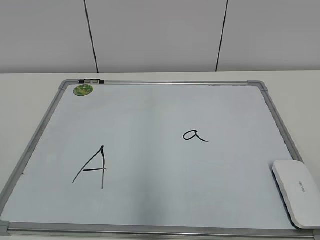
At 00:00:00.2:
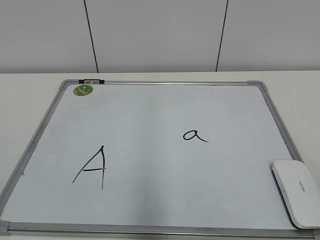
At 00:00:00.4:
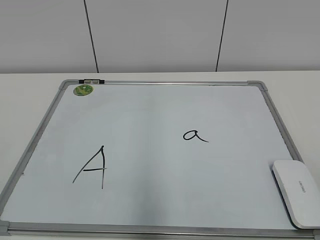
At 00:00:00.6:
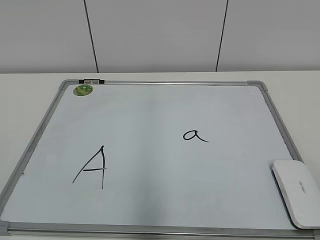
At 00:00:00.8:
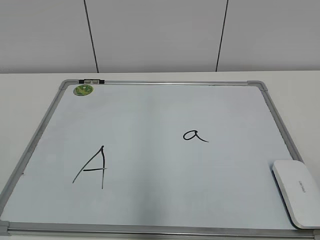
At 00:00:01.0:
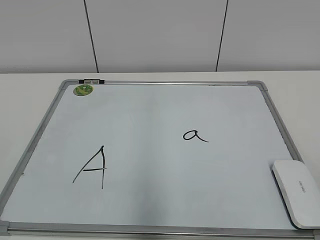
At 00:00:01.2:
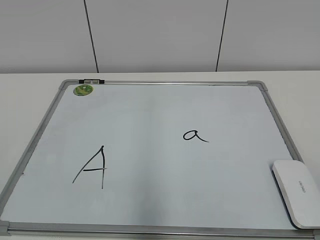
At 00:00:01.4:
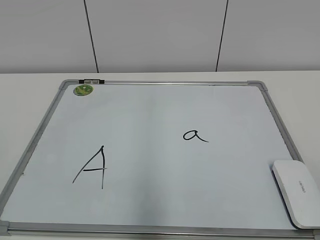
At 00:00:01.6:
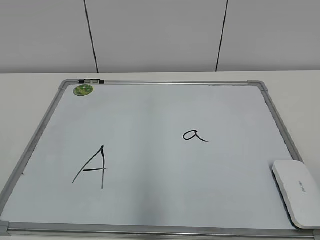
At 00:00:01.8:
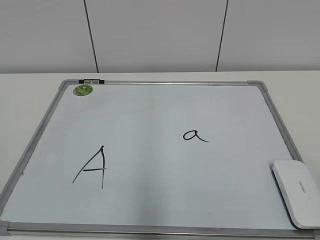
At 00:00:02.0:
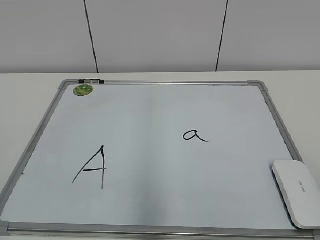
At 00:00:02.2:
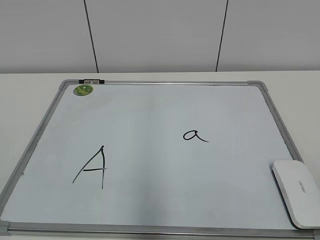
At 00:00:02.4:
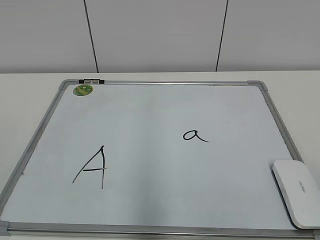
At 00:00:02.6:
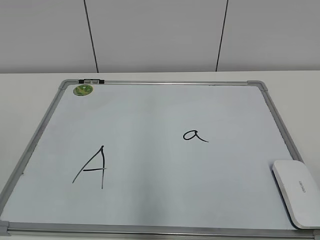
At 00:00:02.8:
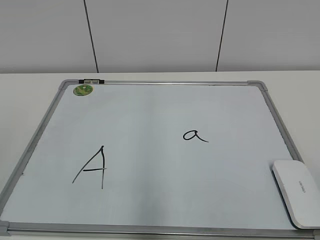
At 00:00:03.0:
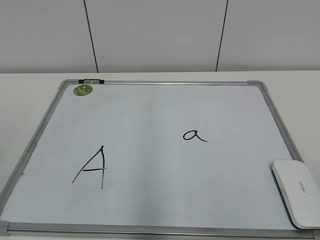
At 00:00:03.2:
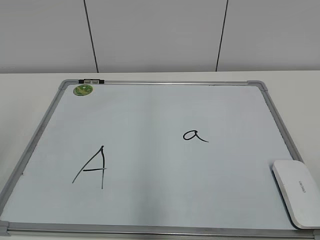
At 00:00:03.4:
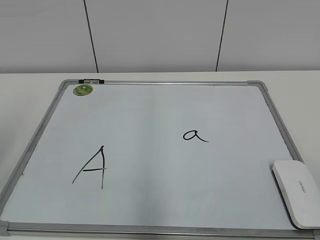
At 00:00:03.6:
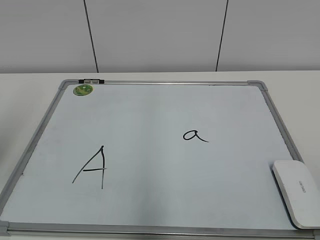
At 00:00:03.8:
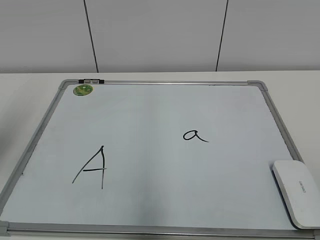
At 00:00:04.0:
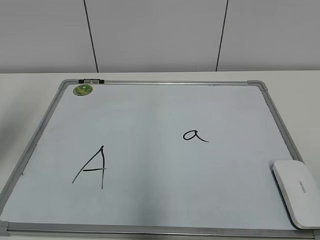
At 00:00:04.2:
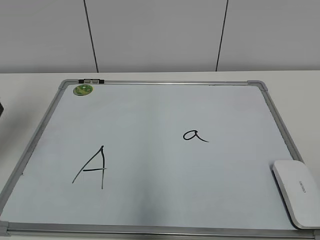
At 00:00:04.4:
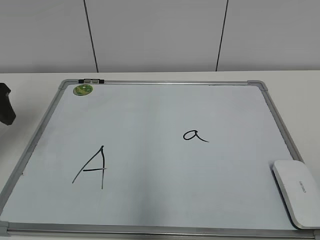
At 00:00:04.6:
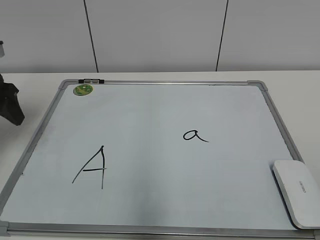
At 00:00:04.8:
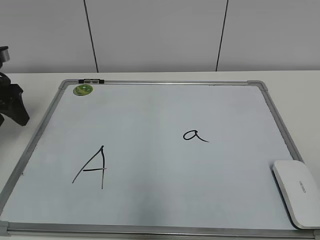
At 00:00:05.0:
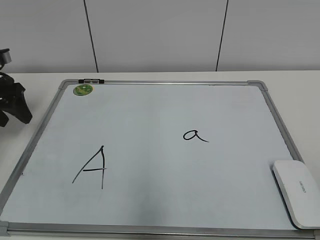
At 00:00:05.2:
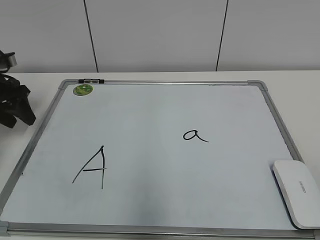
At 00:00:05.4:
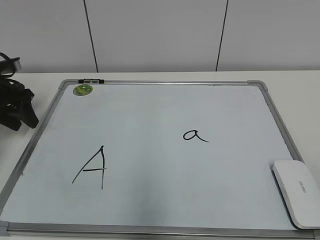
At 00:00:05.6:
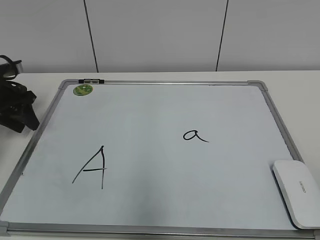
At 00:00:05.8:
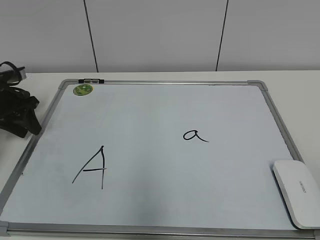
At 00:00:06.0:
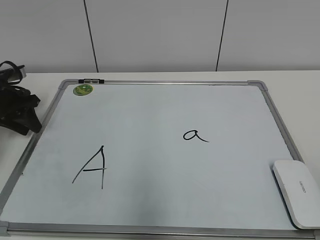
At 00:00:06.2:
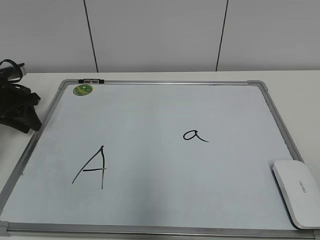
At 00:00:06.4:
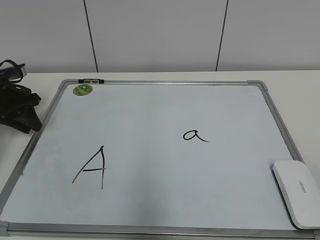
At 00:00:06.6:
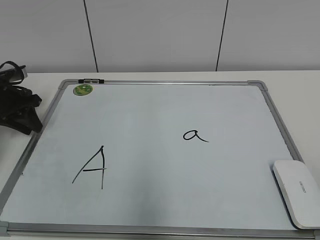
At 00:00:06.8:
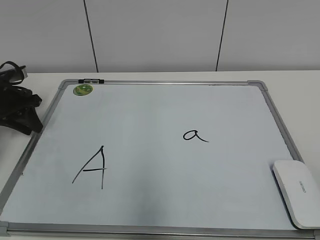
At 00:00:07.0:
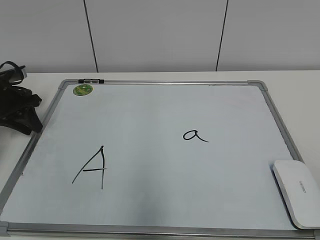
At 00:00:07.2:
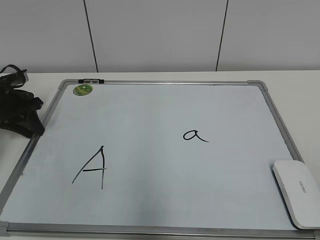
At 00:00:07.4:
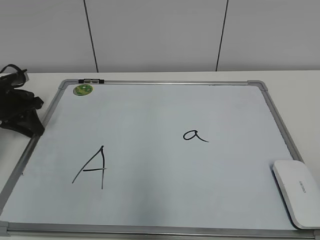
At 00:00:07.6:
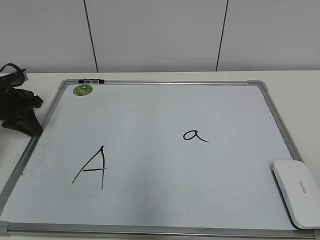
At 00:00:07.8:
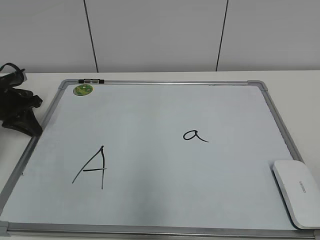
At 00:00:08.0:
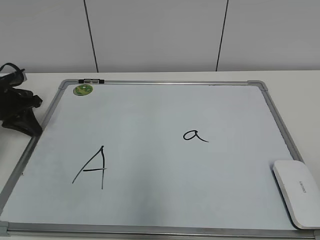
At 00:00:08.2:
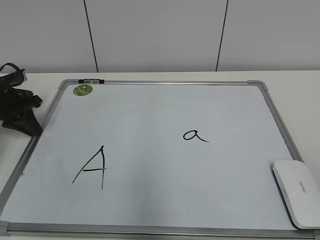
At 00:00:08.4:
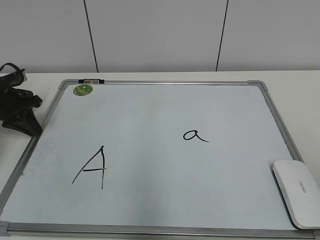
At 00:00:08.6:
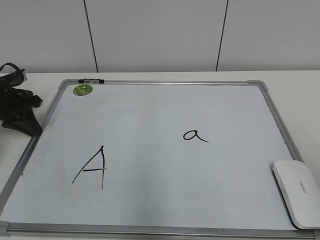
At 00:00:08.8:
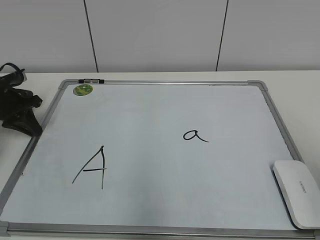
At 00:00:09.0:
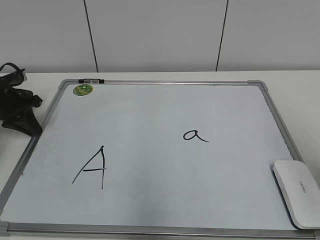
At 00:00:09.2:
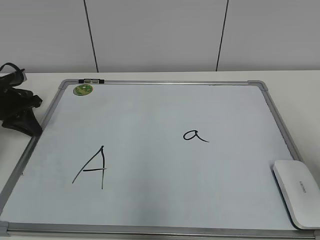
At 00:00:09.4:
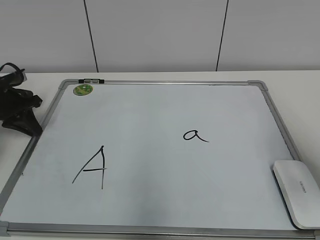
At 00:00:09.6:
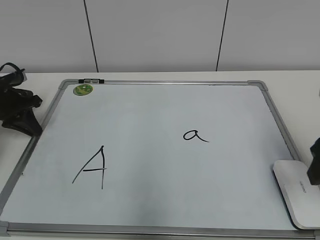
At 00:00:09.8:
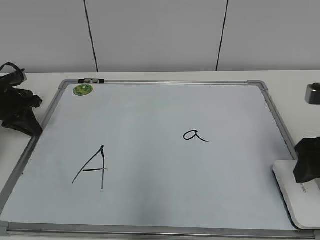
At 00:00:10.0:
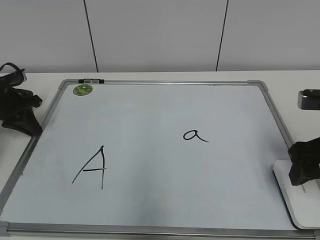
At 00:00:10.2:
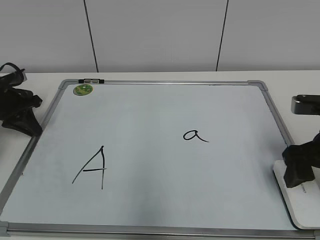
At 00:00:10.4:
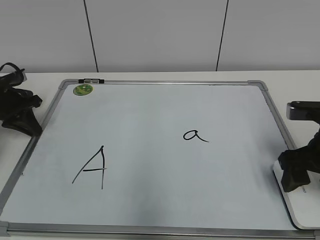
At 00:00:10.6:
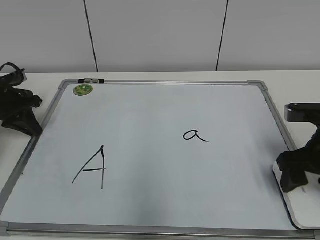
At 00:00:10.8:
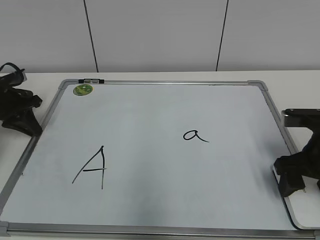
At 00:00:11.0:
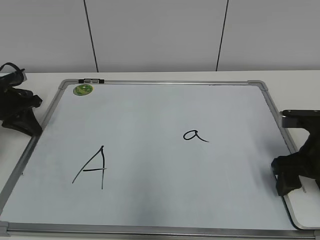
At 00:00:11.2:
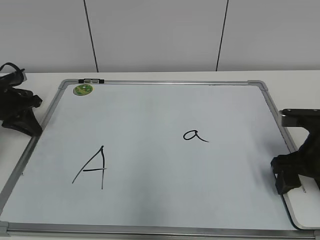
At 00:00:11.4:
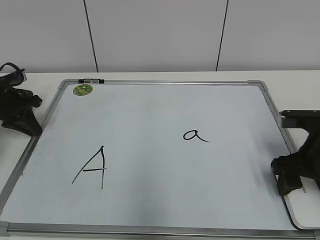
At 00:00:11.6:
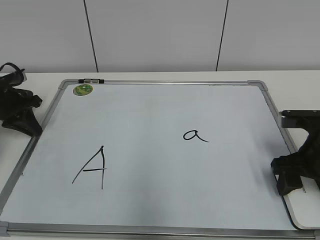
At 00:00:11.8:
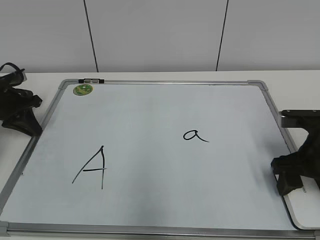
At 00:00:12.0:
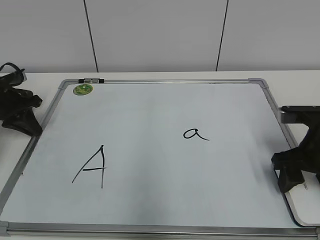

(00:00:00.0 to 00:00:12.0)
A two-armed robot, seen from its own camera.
Task of the whole recording: pick up the eraser on the blackboard and erase the letter "a".
Step, 00:00:00.0 - 00:00:07.2: Hold the drawing board steady with your left hand.
Step, 00:00:07.4 - 00:00:10.8: Grab the eraser with your right hand.
00:00:03.0 - 00:00:04.4: The left gripper shifts roughly 25 cm forward.
00:00:04.4 - 00:00:06.0: The left gripper goes about 15 cm downward and forward, and closes up.
00:00:06.0 - 00:00:07.6: The left gripper closes.
00:00:09.0 - 00:00:10.4: The right gripper goes approximately 20 cm forward and downward.
00:00:10.4 - 00:00:12.0: The right gripper closes its fingers.

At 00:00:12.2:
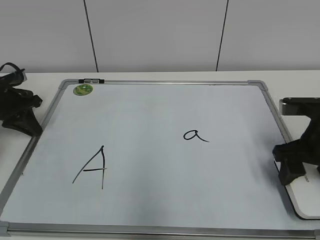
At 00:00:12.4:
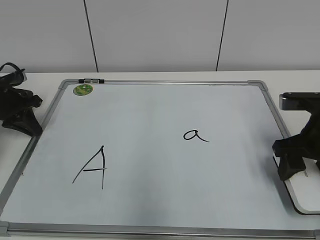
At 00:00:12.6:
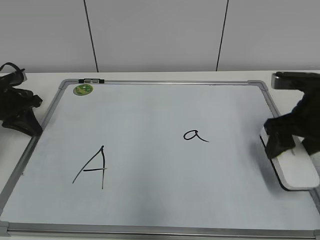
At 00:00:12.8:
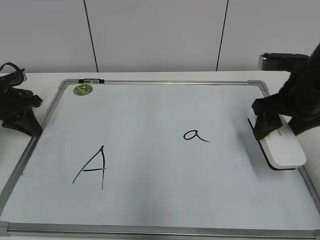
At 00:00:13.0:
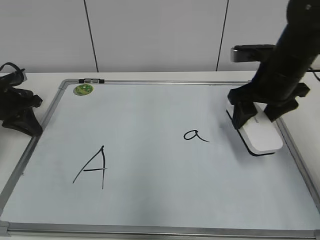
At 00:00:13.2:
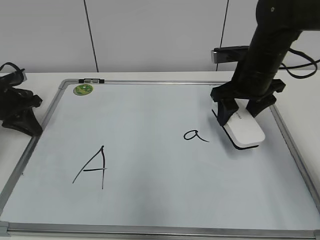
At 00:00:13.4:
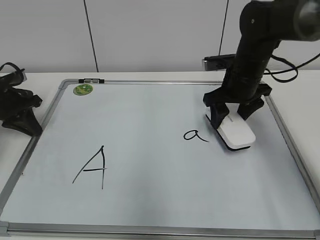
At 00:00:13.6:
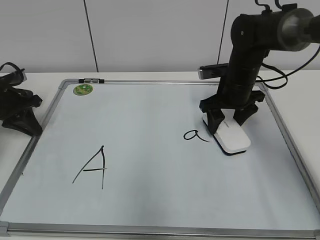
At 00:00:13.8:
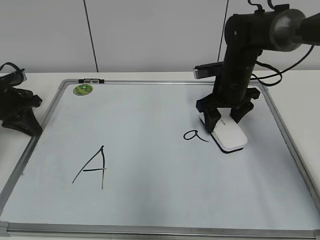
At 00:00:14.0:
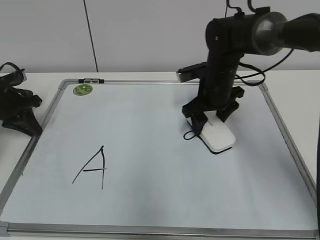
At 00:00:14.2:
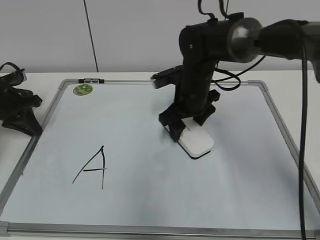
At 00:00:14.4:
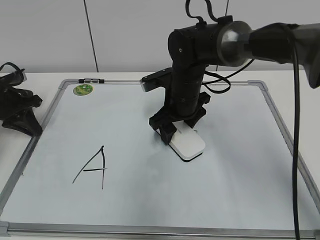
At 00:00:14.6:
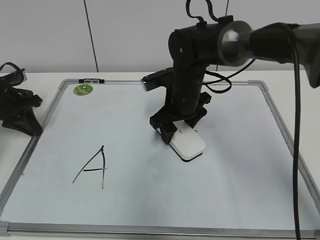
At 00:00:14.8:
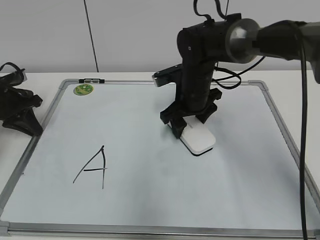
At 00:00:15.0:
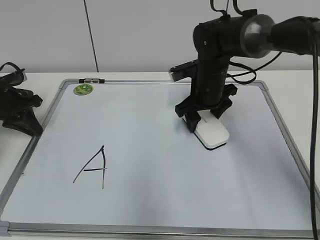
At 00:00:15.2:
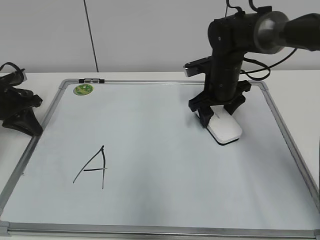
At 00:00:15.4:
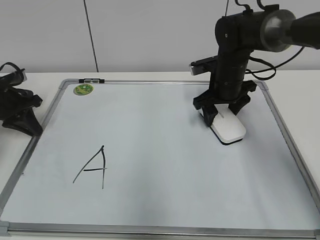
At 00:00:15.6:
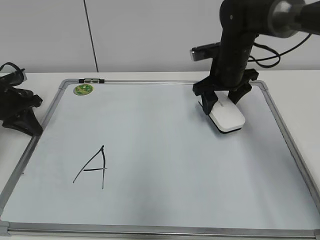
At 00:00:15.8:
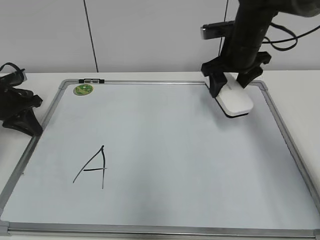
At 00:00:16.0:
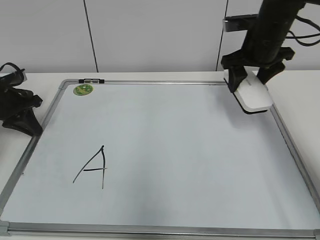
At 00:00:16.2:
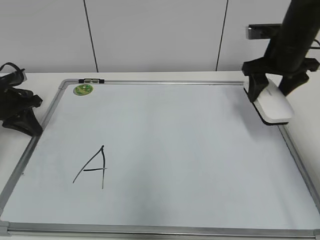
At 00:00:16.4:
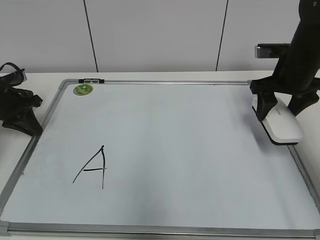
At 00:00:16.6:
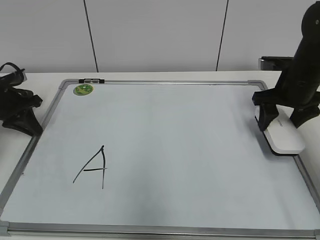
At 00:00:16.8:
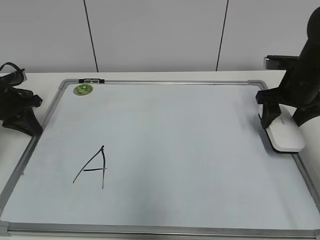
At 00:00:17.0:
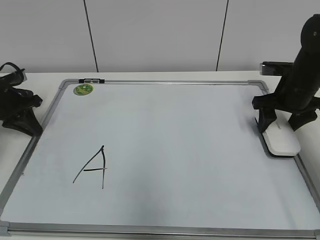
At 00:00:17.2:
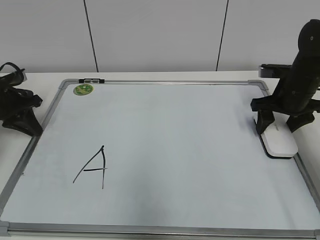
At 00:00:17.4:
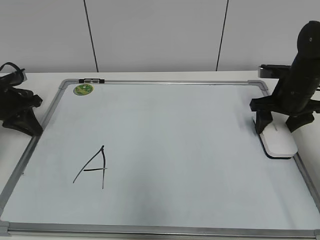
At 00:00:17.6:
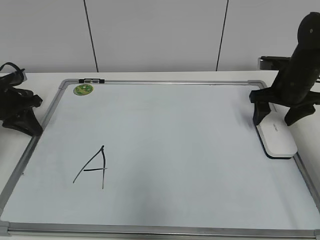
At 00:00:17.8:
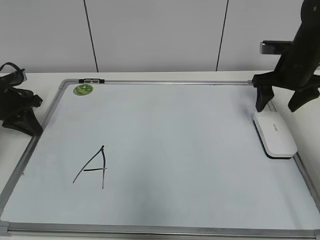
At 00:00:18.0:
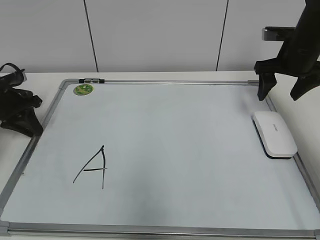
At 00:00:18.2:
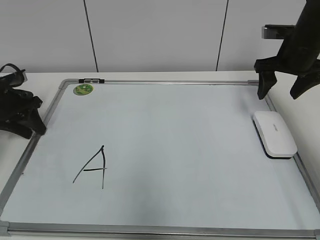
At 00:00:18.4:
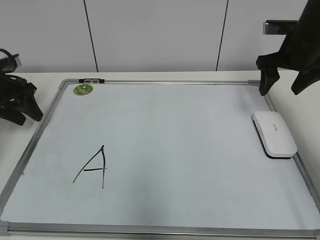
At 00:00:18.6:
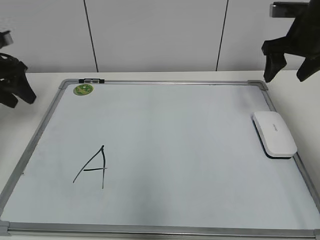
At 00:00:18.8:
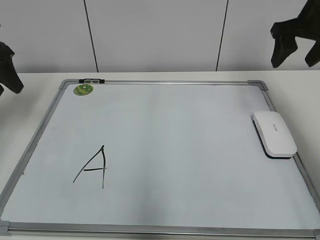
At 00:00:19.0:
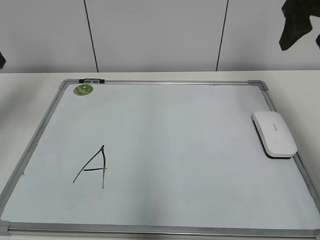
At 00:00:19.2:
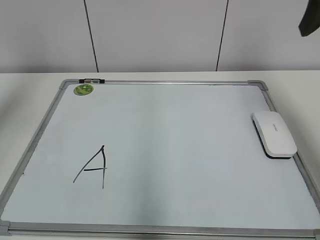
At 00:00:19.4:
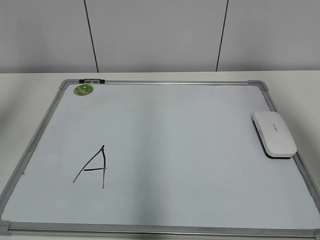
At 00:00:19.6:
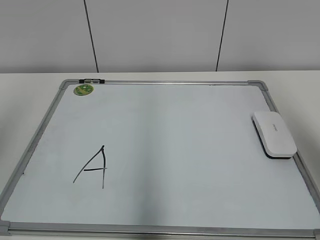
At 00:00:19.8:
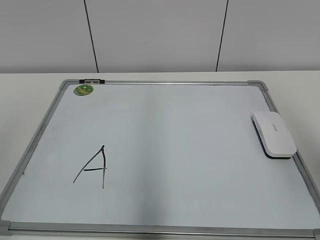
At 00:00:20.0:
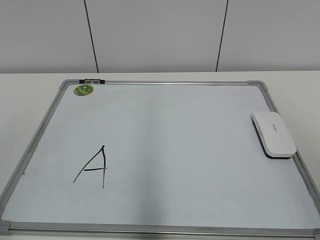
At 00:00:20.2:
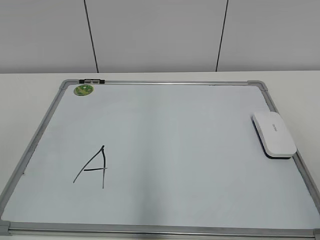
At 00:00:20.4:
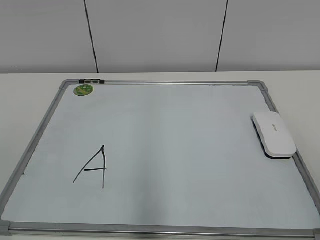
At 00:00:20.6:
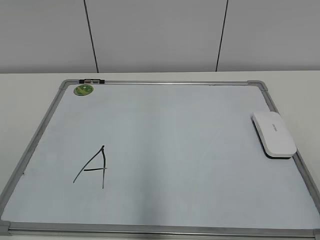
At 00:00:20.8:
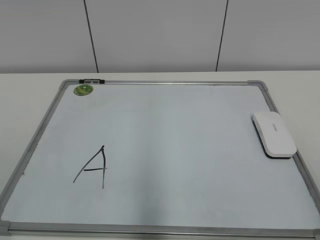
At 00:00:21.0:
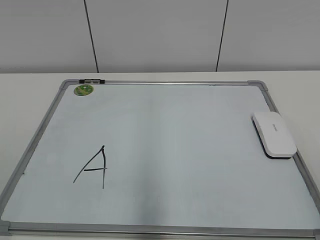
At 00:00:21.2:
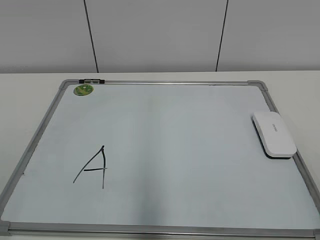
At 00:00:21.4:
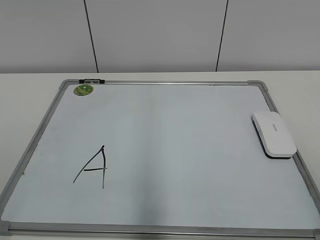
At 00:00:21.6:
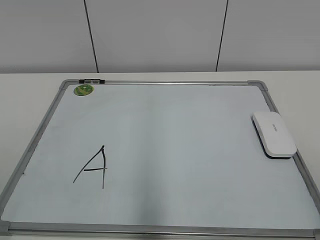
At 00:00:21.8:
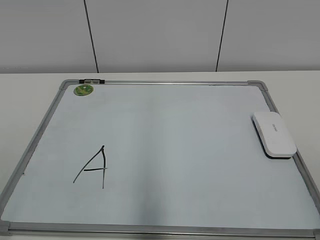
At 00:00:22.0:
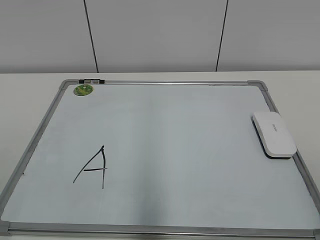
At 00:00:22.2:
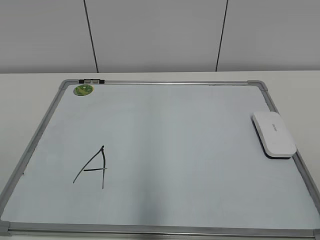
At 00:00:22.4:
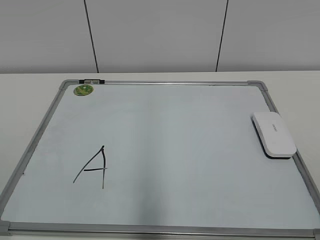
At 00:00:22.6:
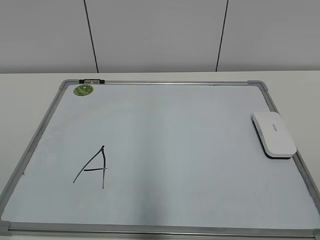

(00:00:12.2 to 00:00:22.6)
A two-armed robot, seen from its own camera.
Task of the whole recording: pick up the eraser on the blackboard and erase the letter "a".
Step, 00:00:12.2 - 00:00:15.2: Erase the letter a with your right hand.
Step, 00:00:15.4 - 00:00:16.8: Put down the eraser with your right hand.
00:00:12.2 - 00:00:13.6: The right gripper travels forward and to the left by some 20 cm.
00:00:13.6 - 00:00:15.2: The right gripper reaches about 10 cm to the left, then returns.
00:00:15.2 - 00:00:16.6: The right gripper travels to the right and backward by approximately 15 cm.
00:00:16.6 - 00:00:18.2: The right gripper shifts by about 5 cm, and opens up. Meanwhile the left gripper opens up.
00:00:18.2 - 00:00:19.6: The right gripper goes about 30 cm backward and upward, and closes up. Meanwhile the left gripper is displaced upward and backward by about 35 cm.
00:00:19.6 - 00:00:21.2: The right gripper goes about 25 cm backward and downward.
